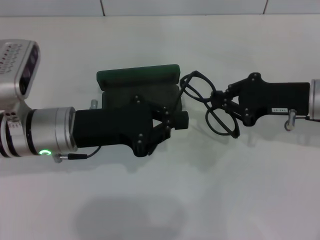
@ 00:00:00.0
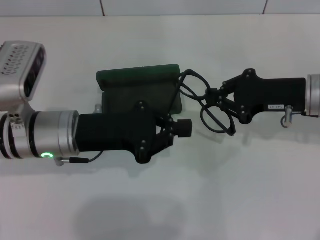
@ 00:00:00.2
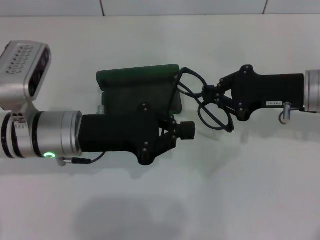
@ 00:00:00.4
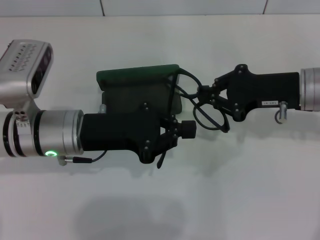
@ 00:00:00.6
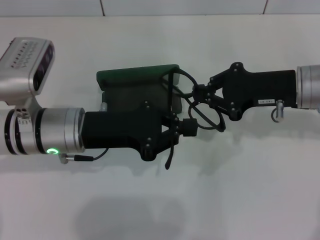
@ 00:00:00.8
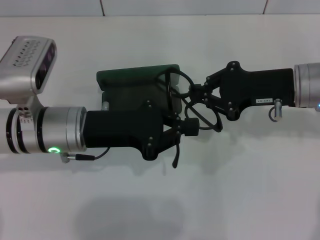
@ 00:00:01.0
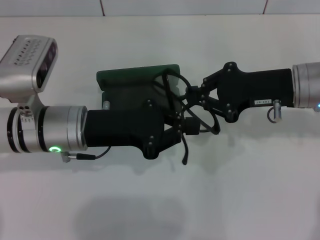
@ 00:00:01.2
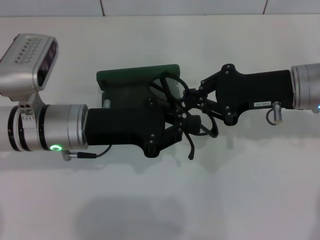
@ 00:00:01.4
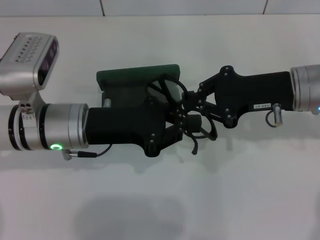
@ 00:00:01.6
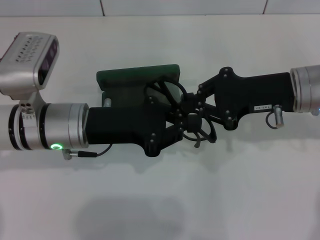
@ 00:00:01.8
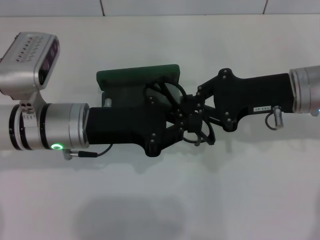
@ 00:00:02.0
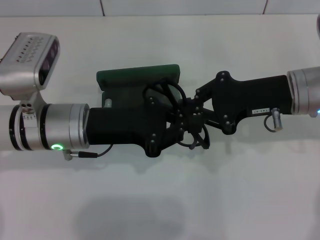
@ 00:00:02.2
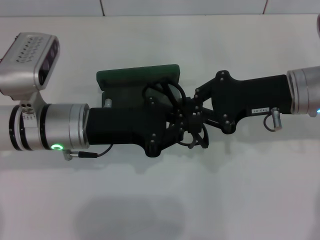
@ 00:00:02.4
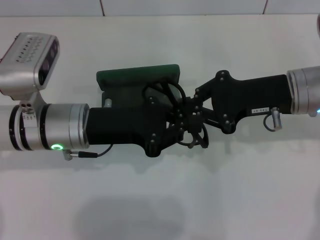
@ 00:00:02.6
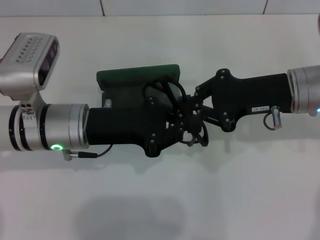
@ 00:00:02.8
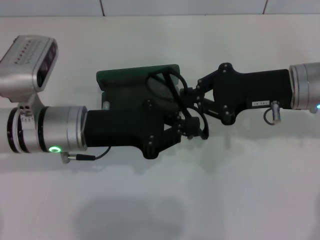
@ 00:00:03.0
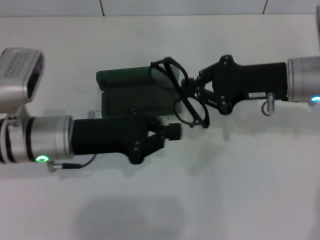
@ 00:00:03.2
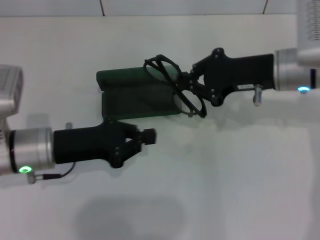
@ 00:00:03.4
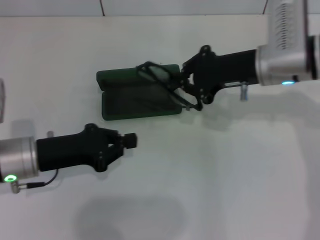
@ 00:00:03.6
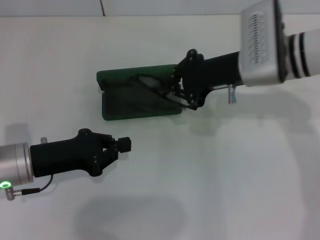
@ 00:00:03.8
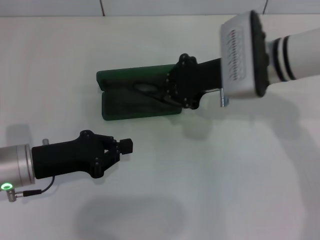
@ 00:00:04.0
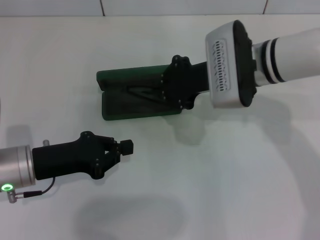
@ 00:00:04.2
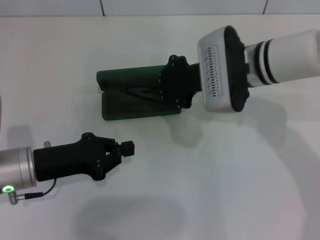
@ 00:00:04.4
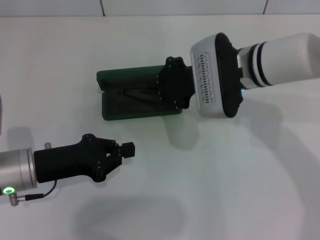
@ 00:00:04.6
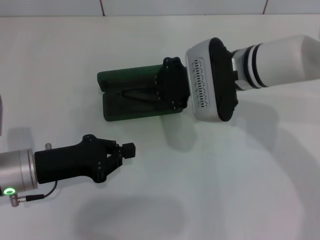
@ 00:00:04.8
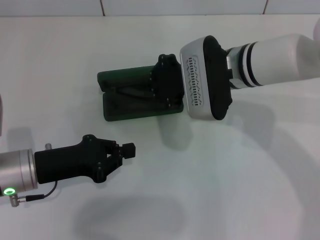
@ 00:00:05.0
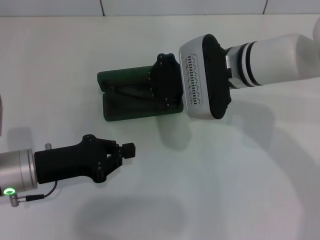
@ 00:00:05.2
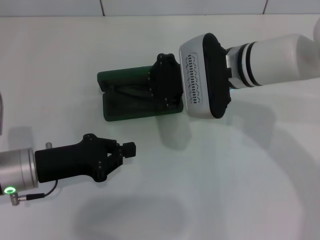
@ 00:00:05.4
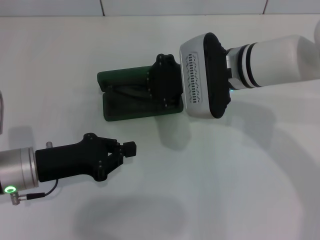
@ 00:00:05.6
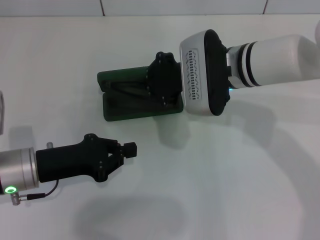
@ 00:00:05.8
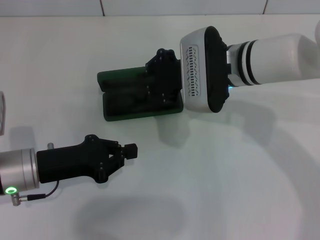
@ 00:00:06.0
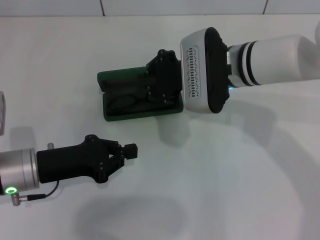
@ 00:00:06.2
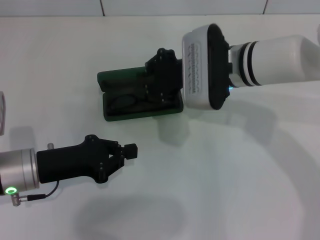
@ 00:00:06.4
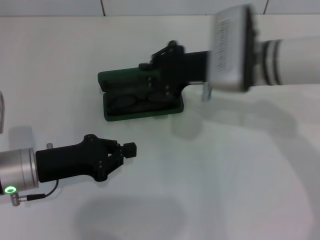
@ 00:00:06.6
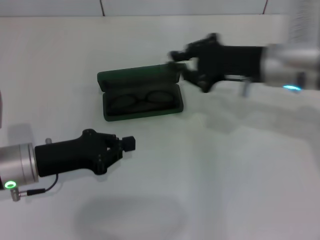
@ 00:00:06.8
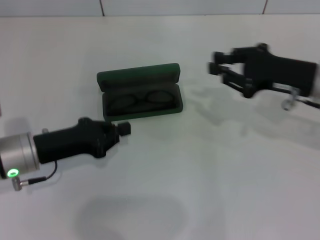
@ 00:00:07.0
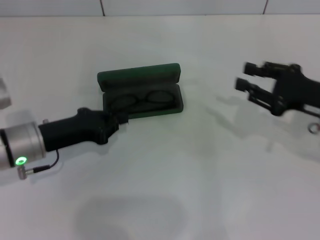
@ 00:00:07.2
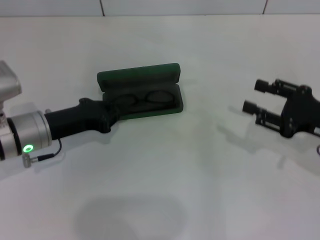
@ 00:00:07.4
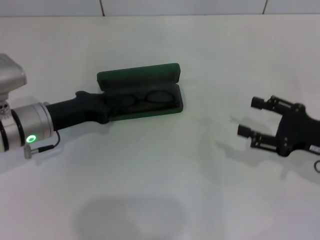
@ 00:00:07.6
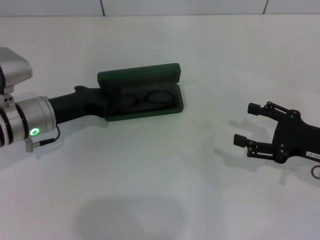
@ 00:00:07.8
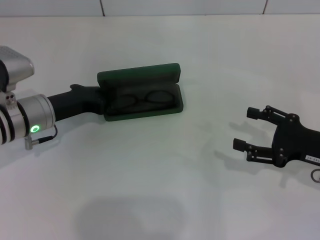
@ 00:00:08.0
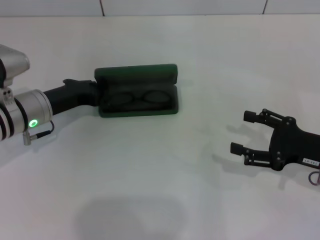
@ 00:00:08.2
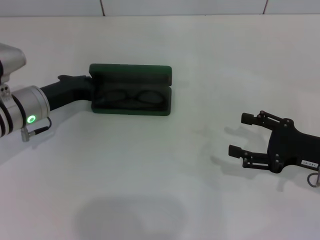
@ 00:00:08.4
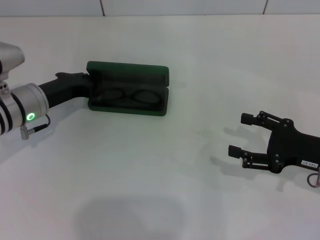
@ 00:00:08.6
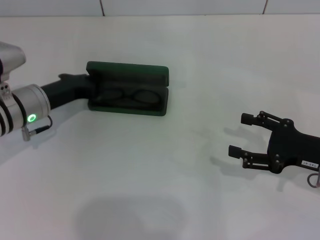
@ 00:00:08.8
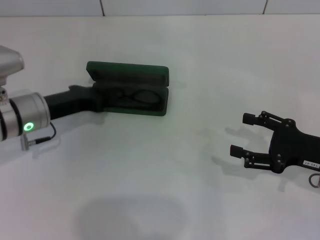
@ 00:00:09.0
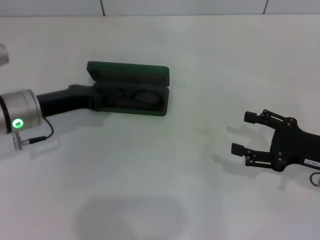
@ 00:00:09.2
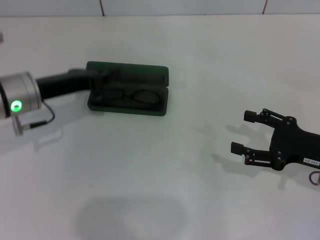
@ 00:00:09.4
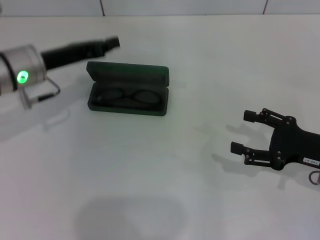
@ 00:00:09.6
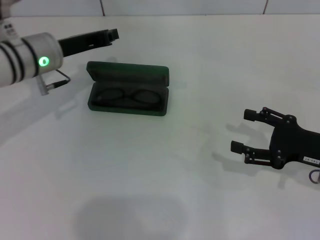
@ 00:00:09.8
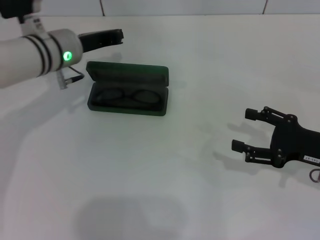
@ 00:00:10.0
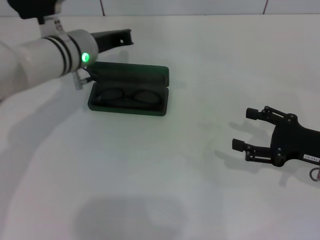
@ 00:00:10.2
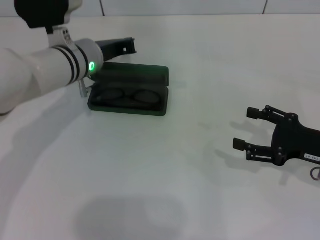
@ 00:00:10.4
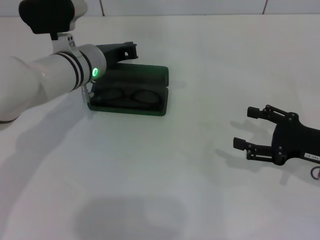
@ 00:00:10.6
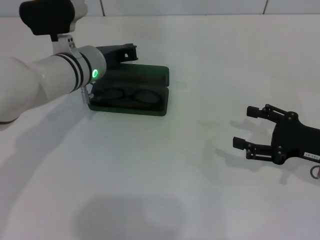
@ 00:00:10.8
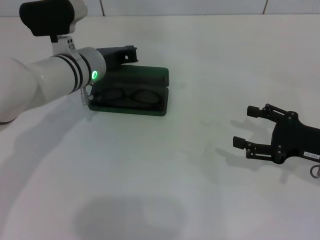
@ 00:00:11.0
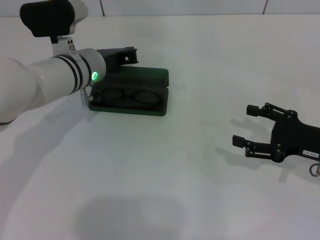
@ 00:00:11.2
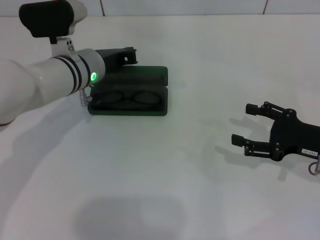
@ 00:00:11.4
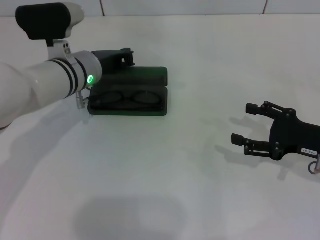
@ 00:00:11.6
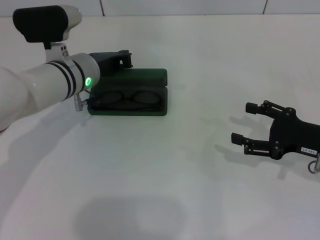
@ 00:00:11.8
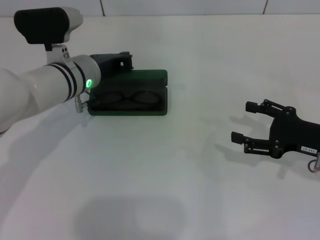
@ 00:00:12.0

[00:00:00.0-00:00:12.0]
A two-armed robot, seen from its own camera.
Step, 00:00:00.0 to 00:00:02.2: Fold the frame with your left hand.
Step, 00:00:02.4 to 00:00:06.4: Put the glasses into the case with your right hand.
00:00:00.0 to 00:00:01.6: The grippers make only small movements.
00:00:01.6 to 00:00:03.0: Both grippers stay about where they are.
00:00:03.0 to 00:00:04.4: The grippers both shift to the left by some 10 cm.
00:00:04.4 to 00:00:06.0: The grippers move only a little.
00:00:06.0 to 00:00:07.6: The left gripper shifts some 5 cm forward; the right gripper travels to the right and backward by approximately 25 cm, and opens its fingers.
00:00:07.6 to 00:00:09.0: The right gripper opens.
00:00:09.0 to 00:00:10.4: The left gripper goes some 10 cm to the right and forward.
00:00:10.4 to 00:00:12.0: There are only small adjustments of the grippers.

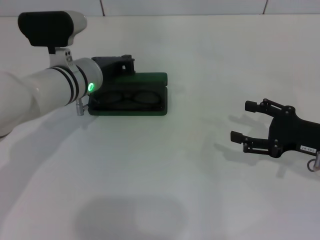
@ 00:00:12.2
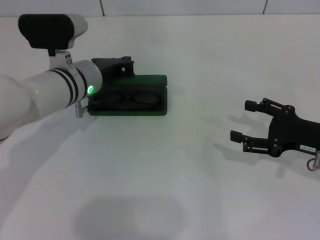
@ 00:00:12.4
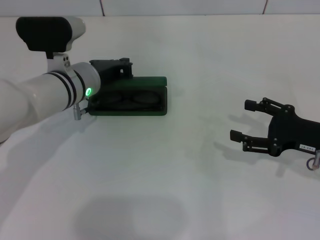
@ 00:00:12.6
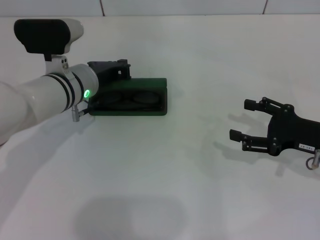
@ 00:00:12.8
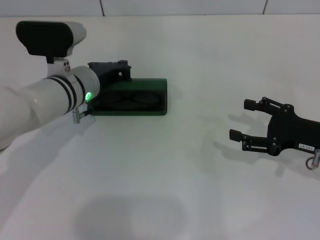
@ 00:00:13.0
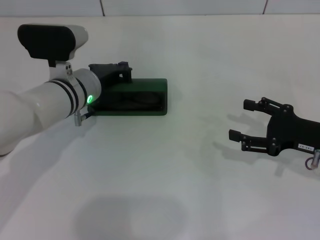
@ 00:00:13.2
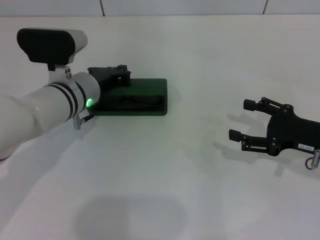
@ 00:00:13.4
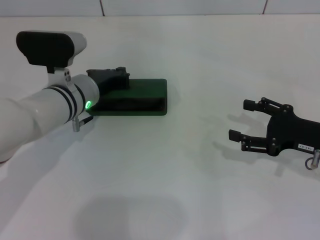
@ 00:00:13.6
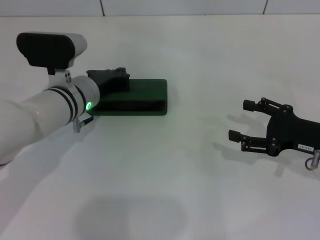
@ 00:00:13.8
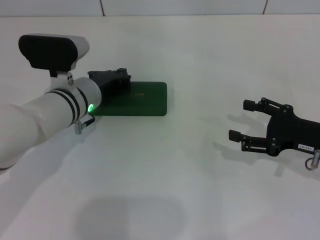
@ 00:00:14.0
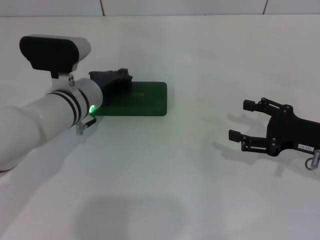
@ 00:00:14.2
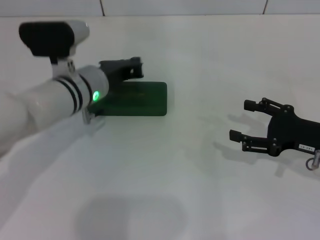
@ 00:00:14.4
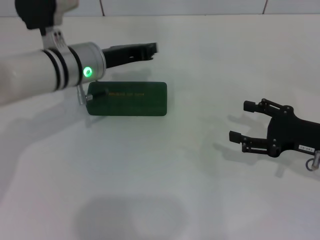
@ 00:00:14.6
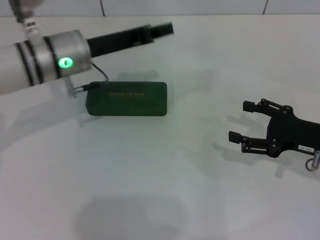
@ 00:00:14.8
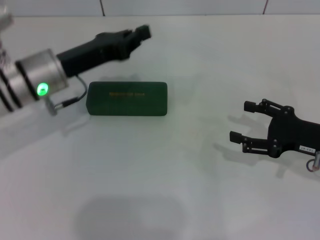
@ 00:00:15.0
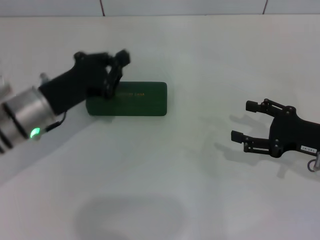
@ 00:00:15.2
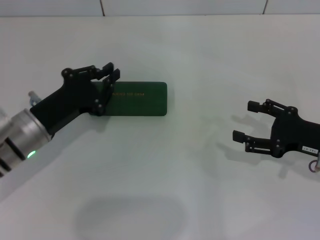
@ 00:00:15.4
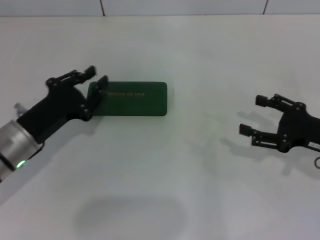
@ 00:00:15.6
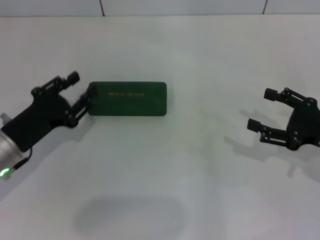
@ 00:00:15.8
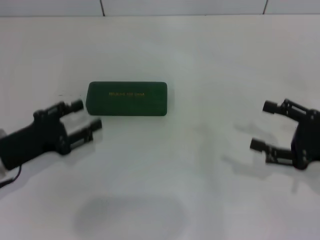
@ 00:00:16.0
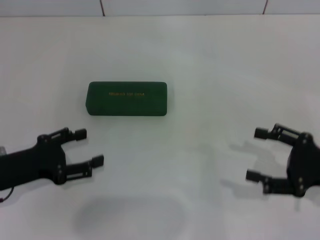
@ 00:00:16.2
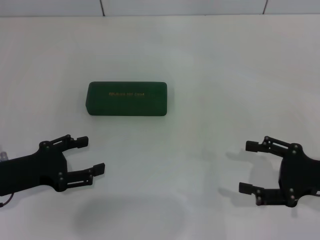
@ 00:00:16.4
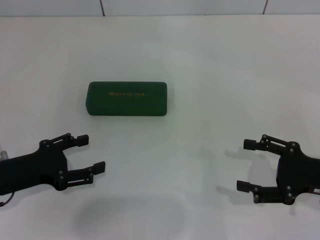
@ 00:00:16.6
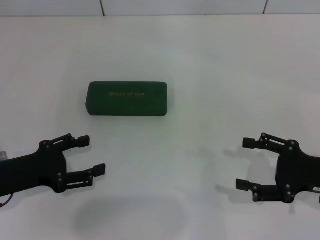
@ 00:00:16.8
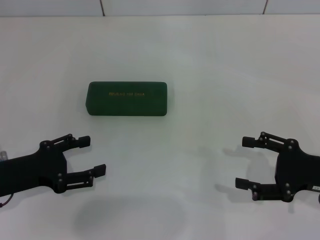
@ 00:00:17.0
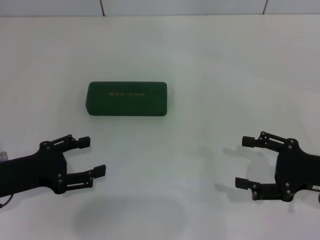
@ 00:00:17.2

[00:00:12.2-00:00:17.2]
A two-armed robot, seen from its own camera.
00:00:12.2 to 00:00:13.8: The grippers make only small movements.
00:00:13.8 to 00:00:15.6: The left gripper moves backward and to the left, some 15 cm.
00:00:15.6 to 00:00:17.2: The left gripper moves roughly 5 cm, and opens up.
